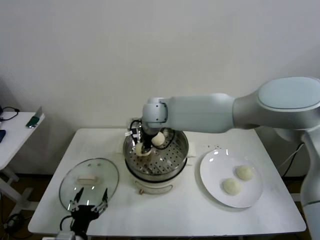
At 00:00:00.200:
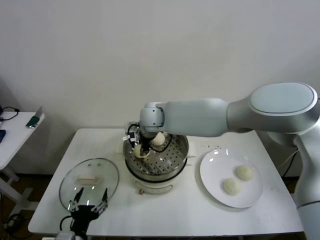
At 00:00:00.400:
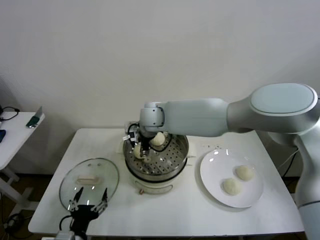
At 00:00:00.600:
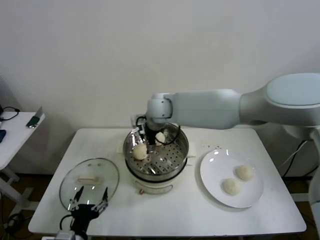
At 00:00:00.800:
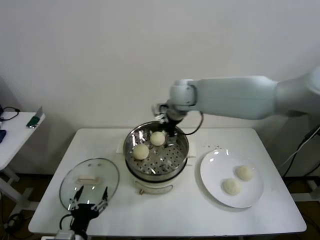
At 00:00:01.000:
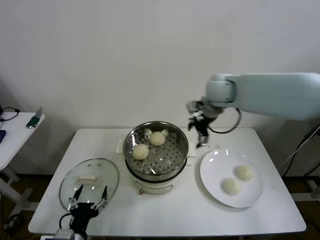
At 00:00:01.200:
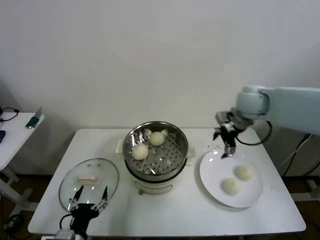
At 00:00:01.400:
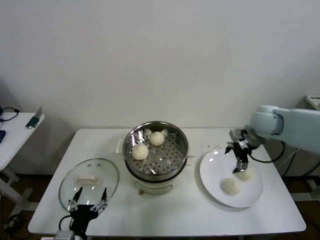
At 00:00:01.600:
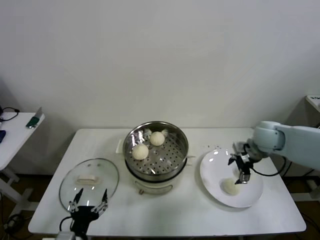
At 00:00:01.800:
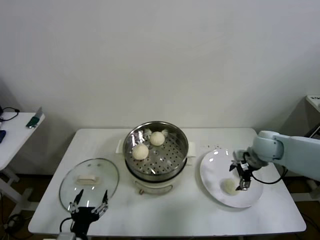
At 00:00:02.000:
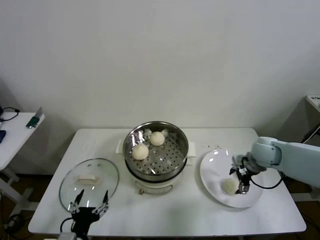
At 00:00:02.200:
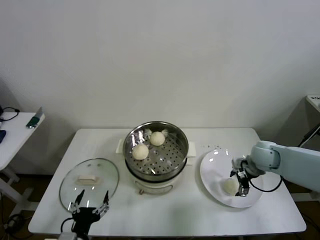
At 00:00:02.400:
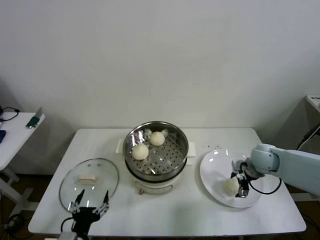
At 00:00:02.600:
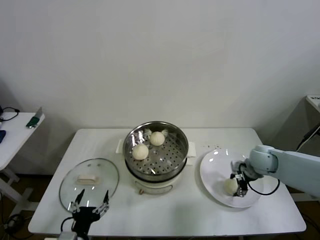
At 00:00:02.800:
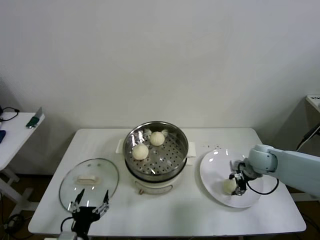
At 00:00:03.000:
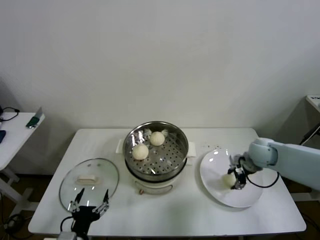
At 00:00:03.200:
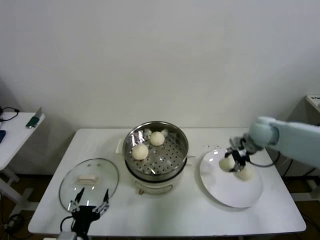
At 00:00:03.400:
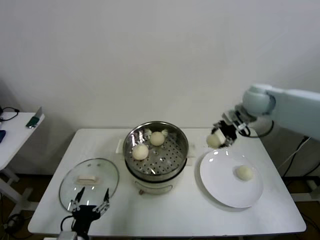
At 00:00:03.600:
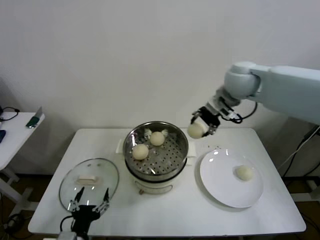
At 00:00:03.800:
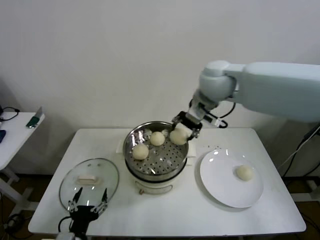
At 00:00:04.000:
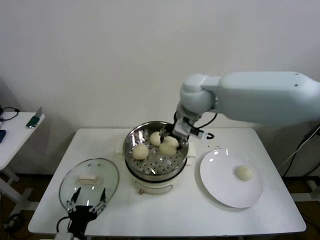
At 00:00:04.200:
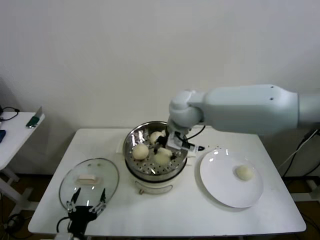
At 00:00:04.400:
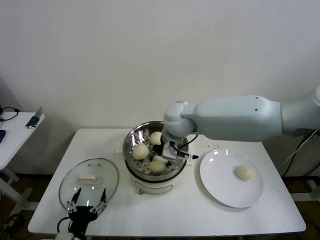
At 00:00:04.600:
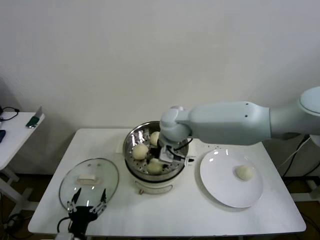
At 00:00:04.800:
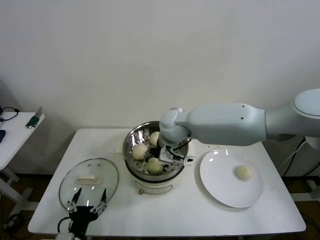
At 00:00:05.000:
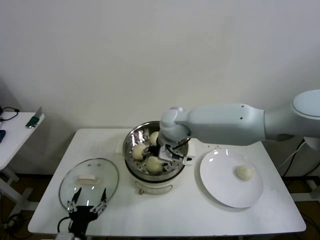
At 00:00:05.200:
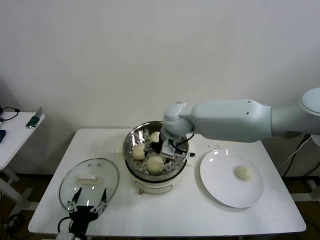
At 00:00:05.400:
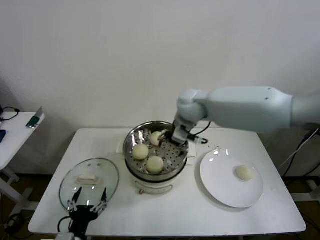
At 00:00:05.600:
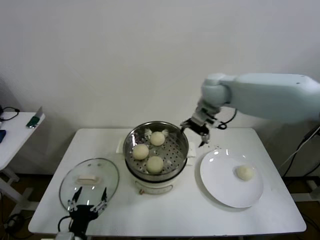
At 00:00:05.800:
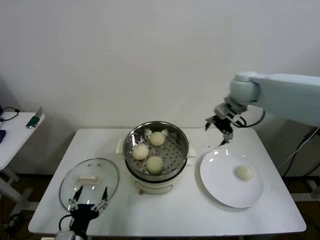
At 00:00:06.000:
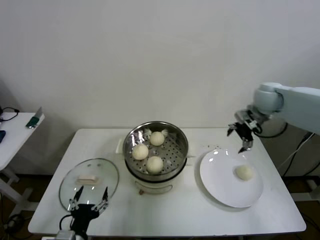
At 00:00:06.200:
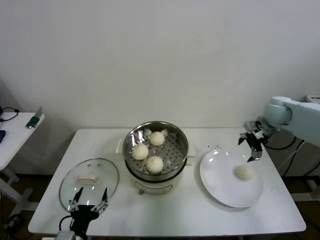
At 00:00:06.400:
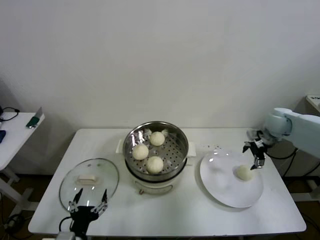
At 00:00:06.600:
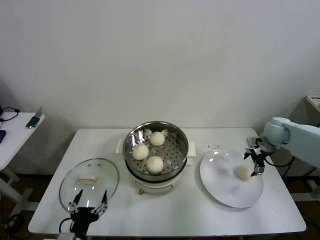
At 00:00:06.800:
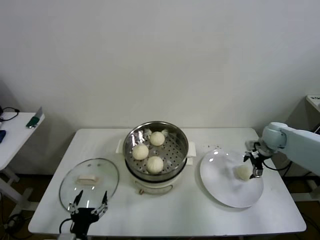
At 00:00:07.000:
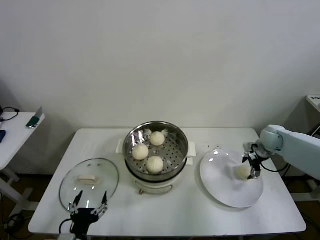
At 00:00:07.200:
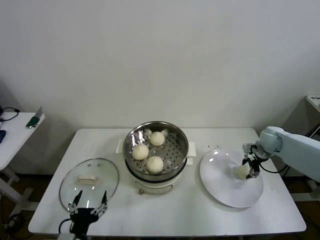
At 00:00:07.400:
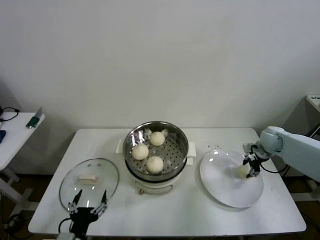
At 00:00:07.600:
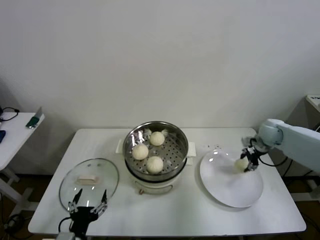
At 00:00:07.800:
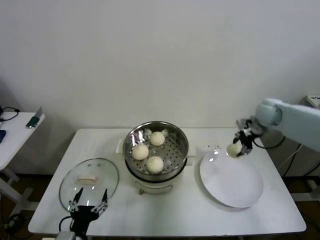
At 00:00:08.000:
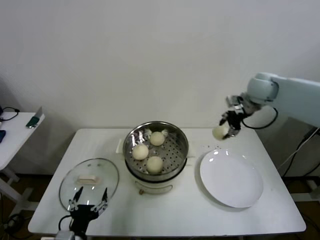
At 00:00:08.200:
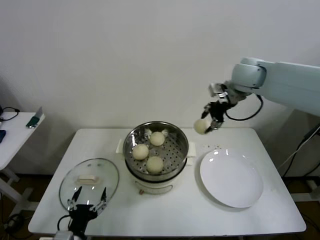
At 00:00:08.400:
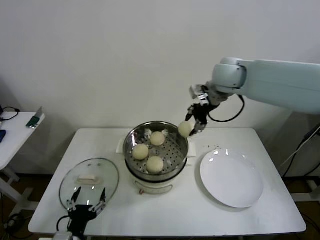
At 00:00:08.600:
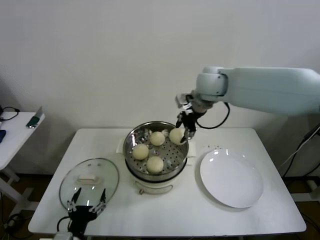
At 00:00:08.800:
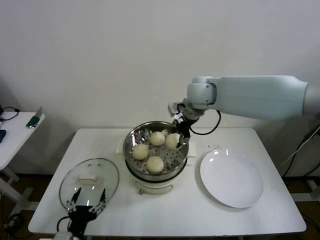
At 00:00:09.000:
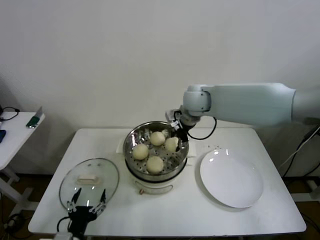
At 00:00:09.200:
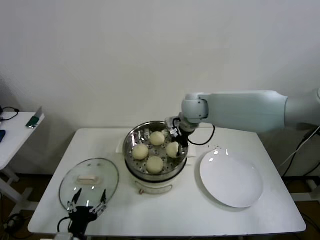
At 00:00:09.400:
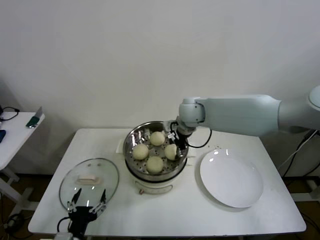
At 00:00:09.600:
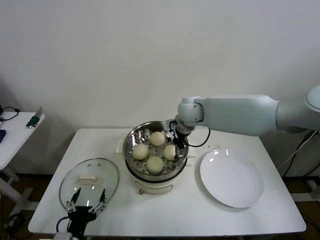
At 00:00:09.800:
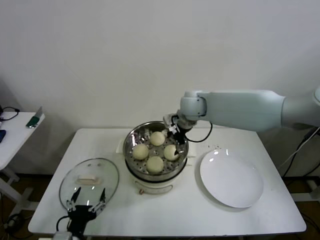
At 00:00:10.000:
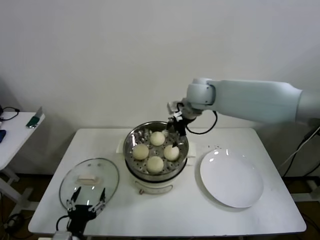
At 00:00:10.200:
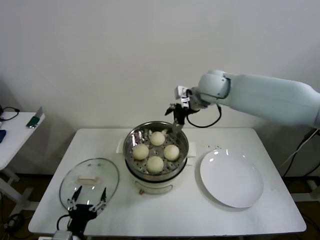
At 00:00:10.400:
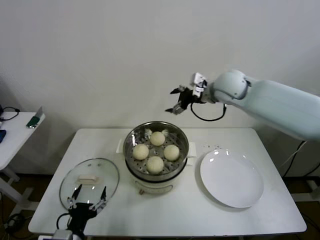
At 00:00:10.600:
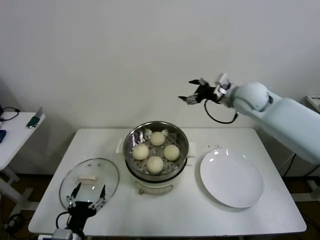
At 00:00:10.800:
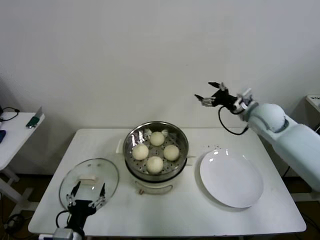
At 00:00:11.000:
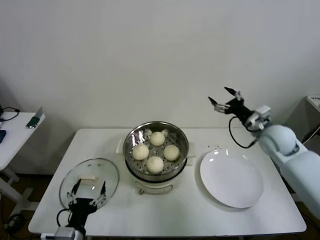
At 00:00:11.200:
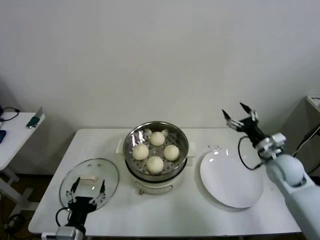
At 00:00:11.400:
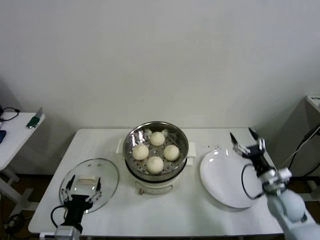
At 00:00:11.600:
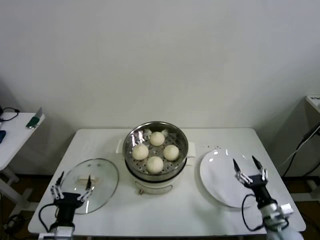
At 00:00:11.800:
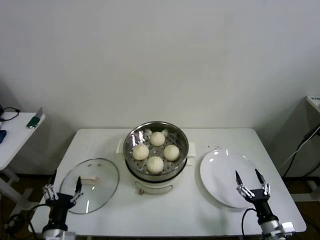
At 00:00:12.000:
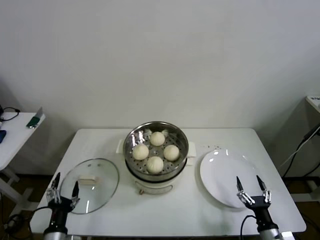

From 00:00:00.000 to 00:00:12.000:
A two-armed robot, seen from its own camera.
Step, from 00:00:00.600 to 00:00:02.600: Grasp the baozi in the plate with right gripper.
Step, from 00:00:02.800 to 00:00:04.600: Place the baozi on the steamer with right gripper.
Step, from 00:00:04.800 to 00:00:07.200: Grasp the baozi in the plate with right gripper.
Step, from 00:00:07.400 to 00:00:09.400: Place the baozi on the steamer with right gripper.
From 00:00:00.000 to 00:00:01.600: The right gripper goes about 35 cm to the right, and opens up.
From 00:00:01.600 to 00:00:03.000: The right gripper closes.
From 00:00:03.000 to 00:00:04.400: The right gripper shifts approximately 35 cm to the left and upward.
From 00:00:04.400 to 00:00:06.000: The right gripper is displaced to the right by roughly 30 cm, and opens its fingers.
From 00:00:06.000 to 00:00:07.600: The right gripper moves downward and to the right, approximately 15 cm, and closes its fingers.
From 00:00:07.600 to 00:00:09.000: The right gripper heads to the left and upward, covering roughly 35 cm.
From 00:00:09.000 to 00:00:10.400: The right gripper heads to the right, covering about 10 cm, and opens up.
From 00:00:10.400 to 00:00:12.000: The right gripper goes approximately 60 cm downward and backward. The left gripper is displaced downward and to the left by roughly 10 cm.

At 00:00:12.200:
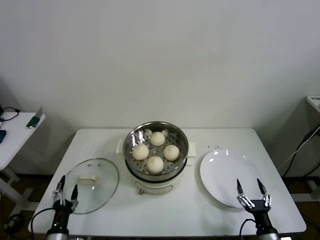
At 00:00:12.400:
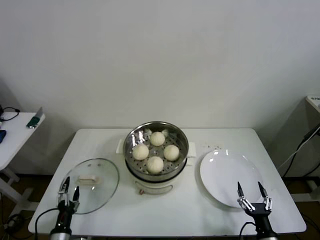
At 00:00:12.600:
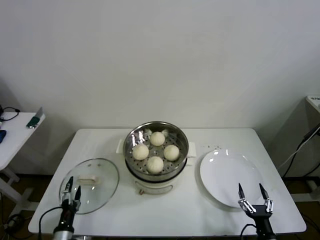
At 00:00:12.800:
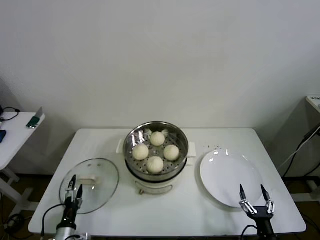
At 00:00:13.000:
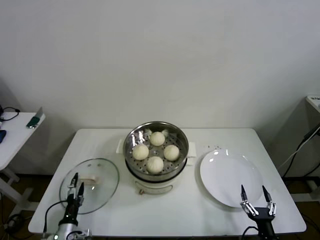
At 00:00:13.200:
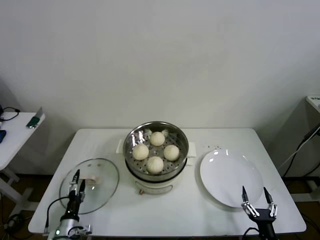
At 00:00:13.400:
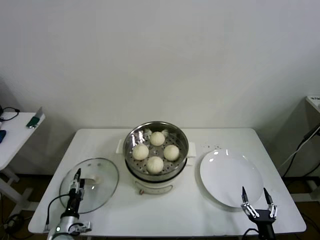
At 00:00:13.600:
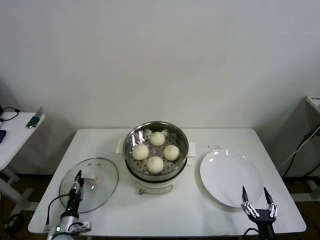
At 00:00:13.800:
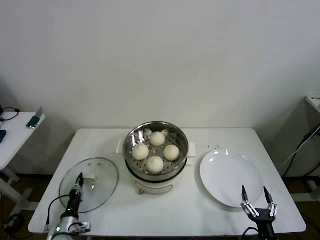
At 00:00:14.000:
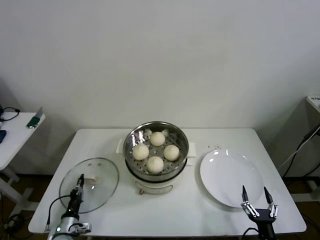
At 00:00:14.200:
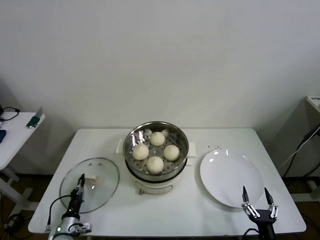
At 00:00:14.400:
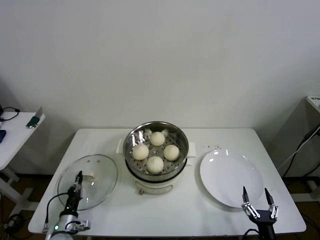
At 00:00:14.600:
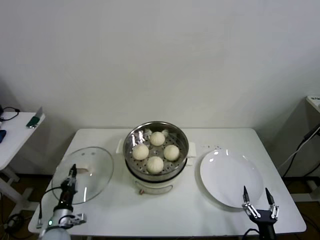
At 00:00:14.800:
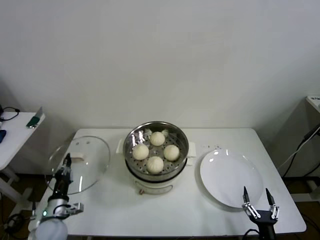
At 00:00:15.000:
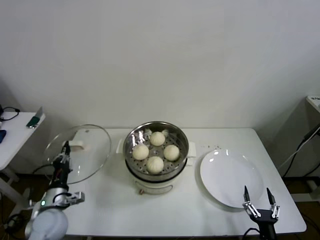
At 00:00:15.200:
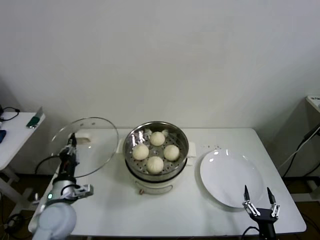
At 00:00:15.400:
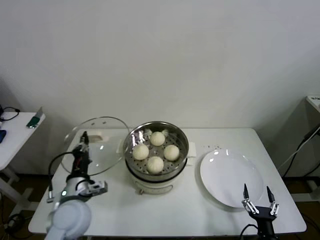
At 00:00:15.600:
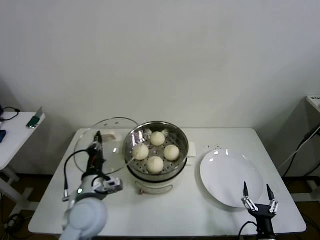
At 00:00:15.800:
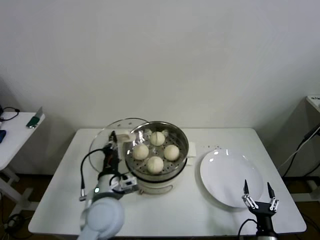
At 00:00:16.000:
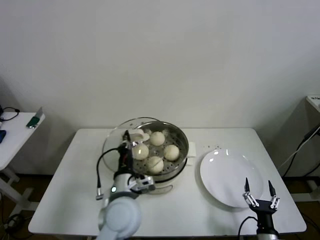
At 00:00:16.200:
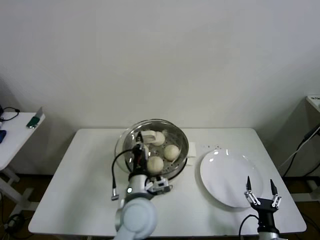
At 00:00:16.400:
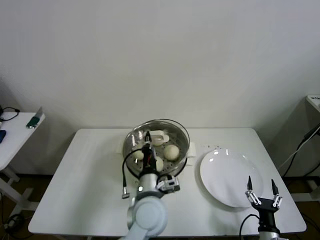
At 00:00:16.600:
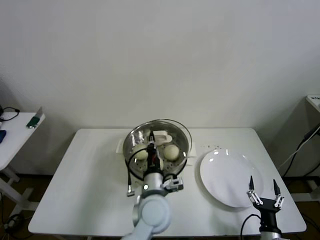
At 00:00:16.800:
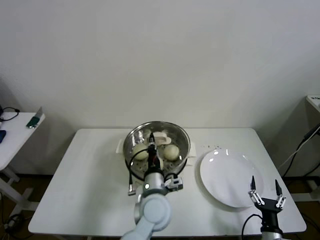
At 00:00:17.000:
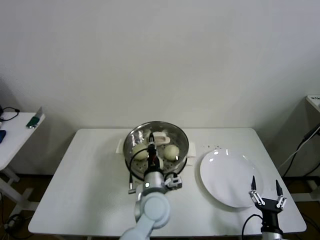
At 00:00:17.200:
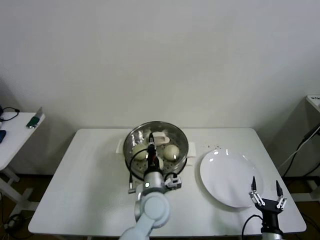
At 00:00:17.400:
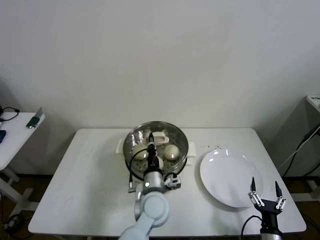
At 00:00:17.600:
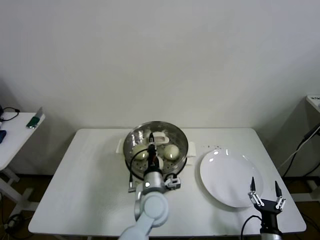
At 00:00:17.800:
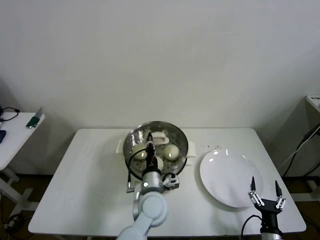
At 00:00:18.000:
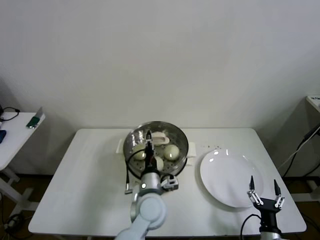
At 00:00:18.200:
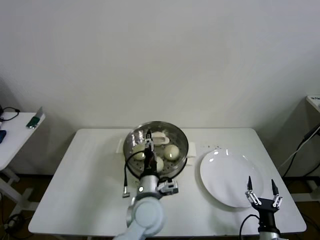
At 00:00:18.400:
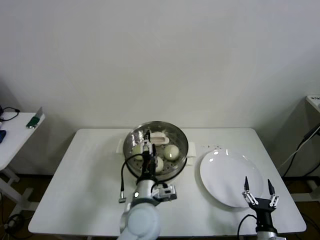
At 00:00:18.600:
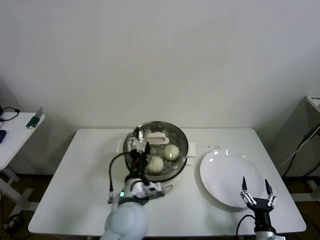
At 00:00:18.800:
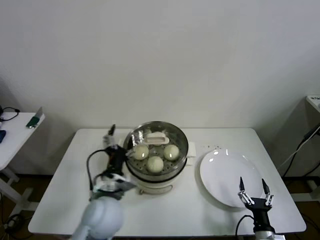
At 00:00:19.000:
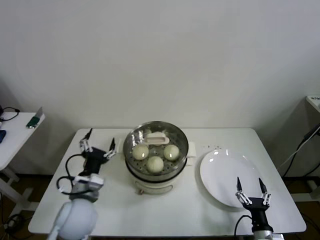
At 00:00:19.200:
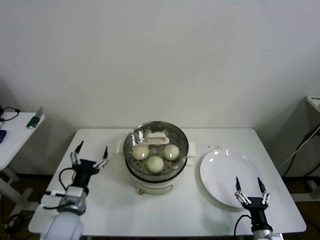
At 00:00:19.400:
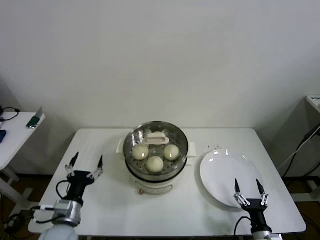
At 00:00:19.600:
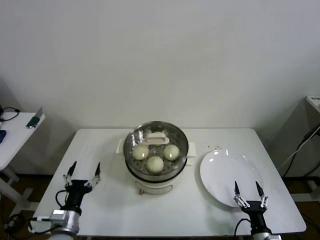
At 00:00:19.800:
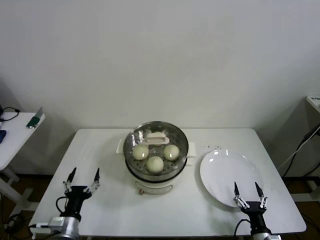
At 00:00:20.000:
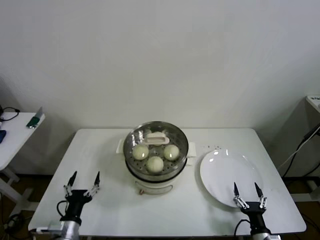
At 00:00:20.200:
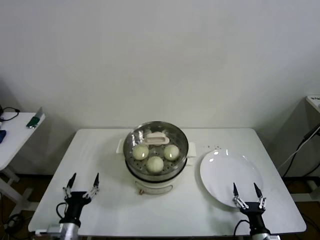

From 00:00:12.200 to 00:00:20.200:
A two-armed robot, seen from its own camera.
Step, from 00:00:14.000 to 00:00:17.800: Place the pot lid on the steamer with left gripper.
From 00:00:12.200 to 00:00:13.800: The left gripper goes about 10 cm downward and forward, and closes up.
From 00:00:13.800 to 00:00:15.400: The left gripper shifts about 25 cm upward and to the right.
From 00:00:15.400 to 00:00:17.000: The left gripper goes roughly 25 cm to the right.
From 00:00:17.000 to 00:00:18.600: The left gripper shifts by about 5 cm, and opens up.
From 00:00:18.600 to 00:00:20.200: The left gripper shifts some 25 cm to the left and downward.
